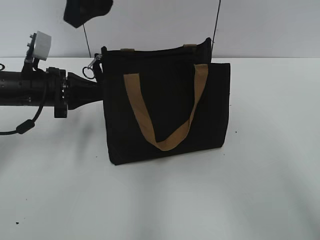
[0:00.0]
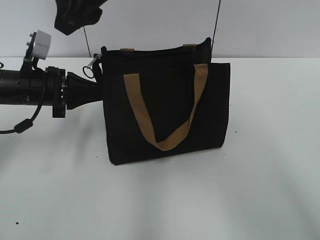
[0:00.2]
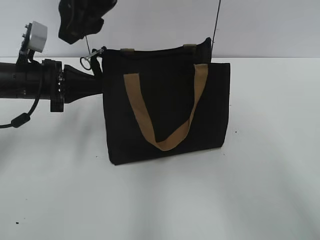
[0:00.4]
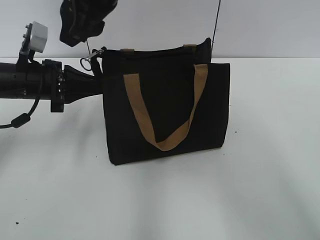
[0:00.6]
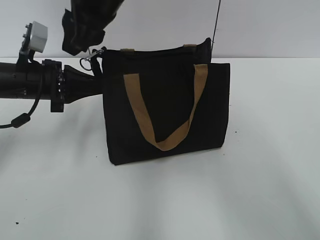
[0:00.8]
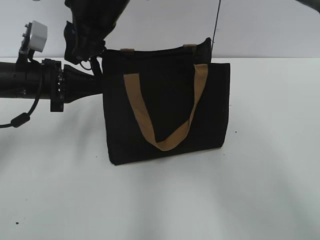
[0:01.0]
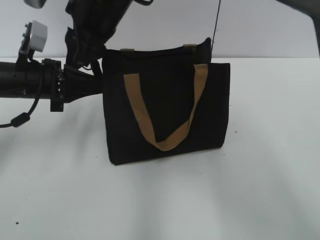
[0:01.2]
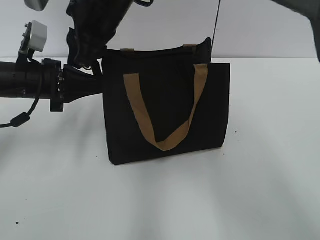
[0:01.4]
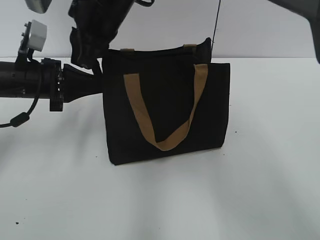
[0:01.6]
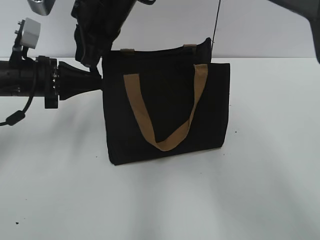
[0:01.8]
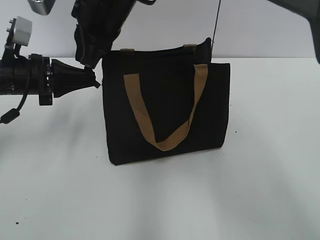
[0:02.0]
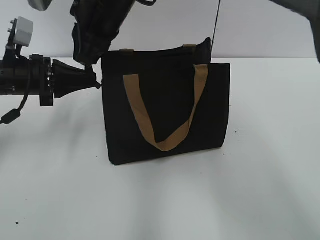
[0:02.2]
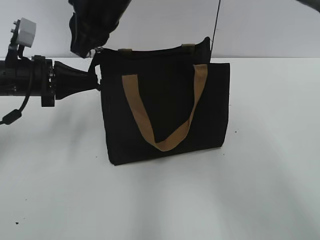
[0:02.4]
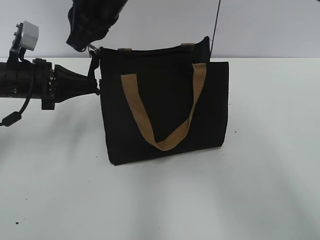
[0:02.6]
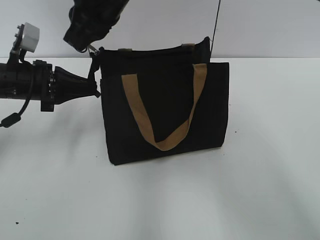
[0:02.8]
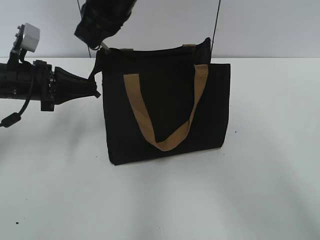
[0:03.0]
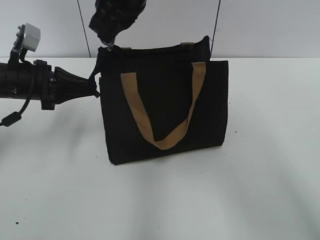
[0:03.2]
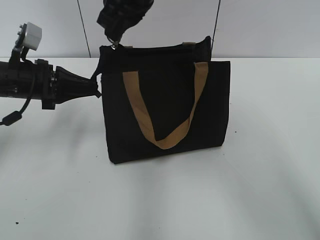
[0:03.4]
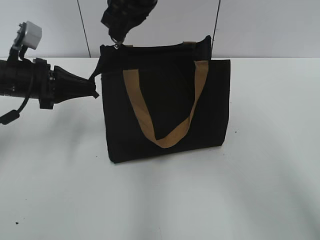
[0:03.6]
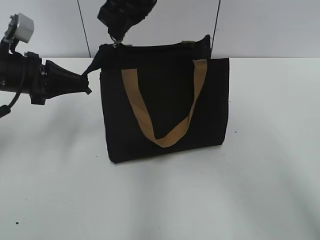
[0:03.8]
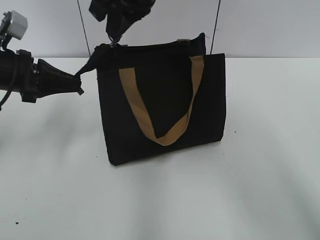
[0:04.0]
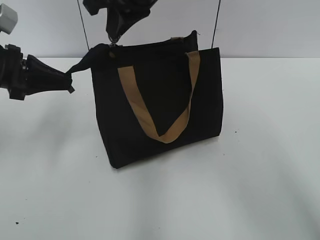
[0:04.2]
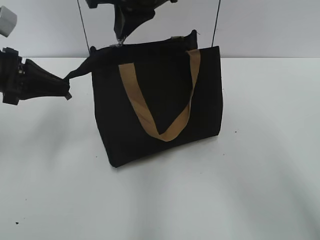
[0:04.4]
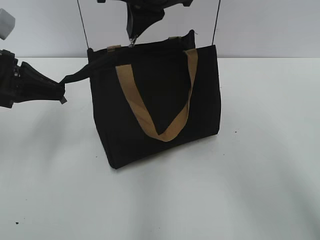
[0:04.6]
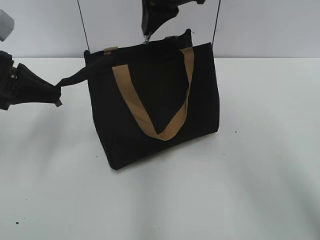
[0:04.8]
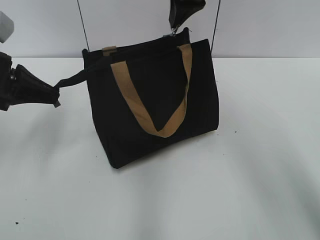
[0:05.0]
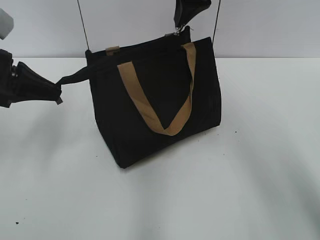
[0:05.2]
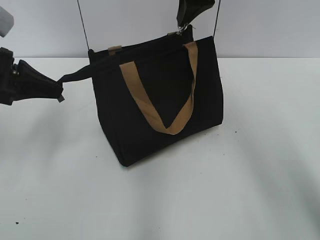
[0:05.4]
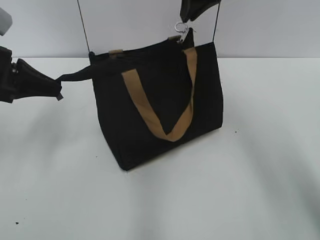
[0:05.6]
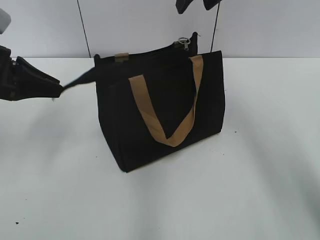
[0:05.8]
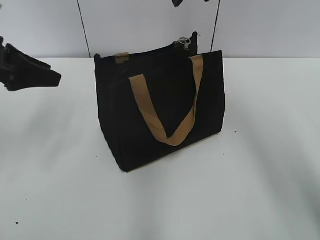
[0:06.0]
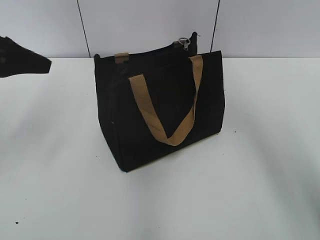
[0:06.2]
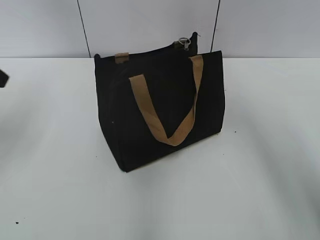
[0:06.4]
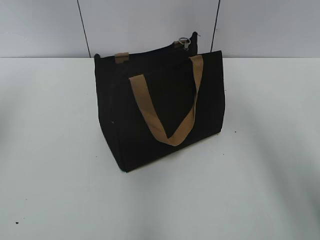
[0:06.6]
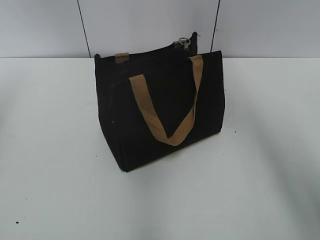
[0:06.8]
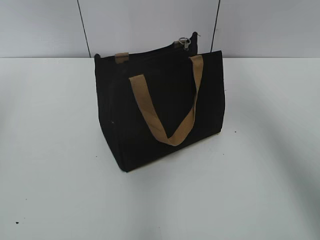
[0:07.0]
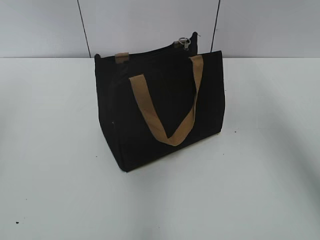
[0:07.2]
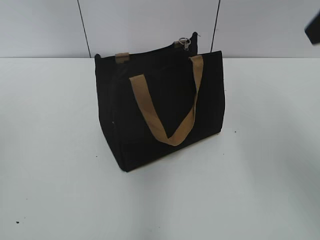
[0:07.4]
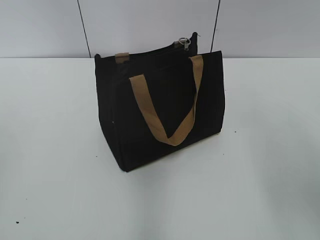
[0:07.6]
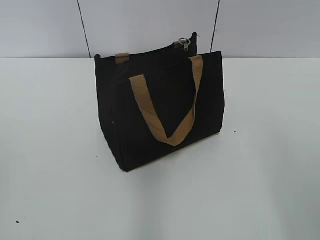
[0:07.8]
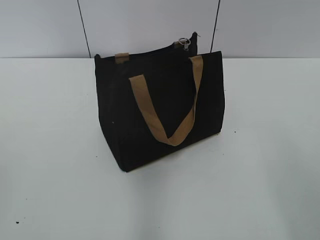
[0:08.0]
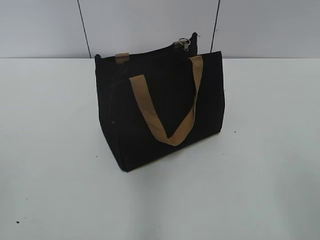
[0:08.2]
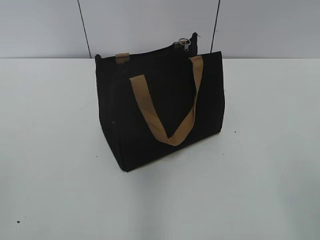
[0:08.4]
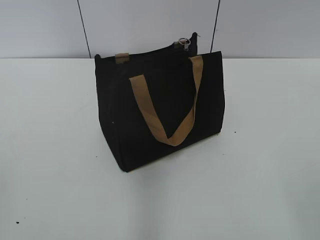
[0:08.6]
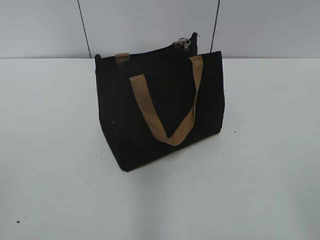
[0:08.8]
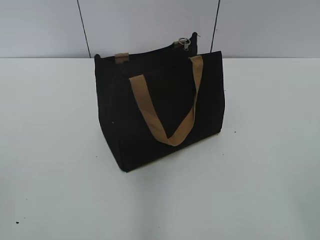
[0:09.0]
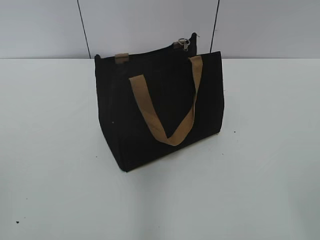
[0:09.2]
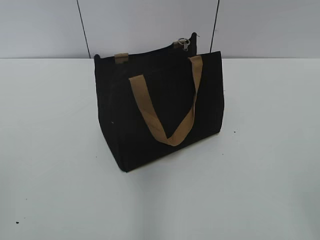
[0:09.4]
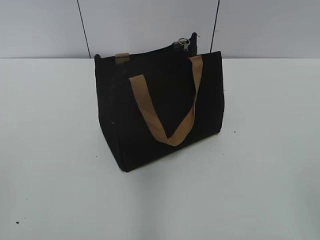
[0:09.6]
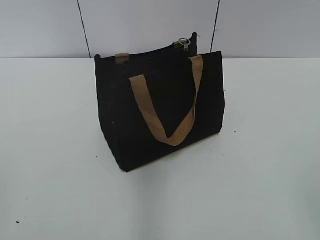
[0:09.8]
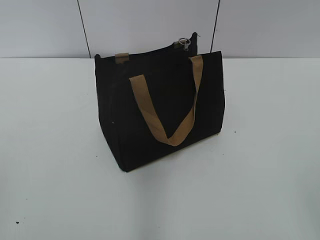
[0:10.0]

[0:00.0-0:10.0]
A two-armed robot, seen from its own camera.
Step, 0:00.0 to 0:05.4: Zip up the bag with your right hand.
0:00.0 to 0:01.4: The right gripper is displaced downward by about 10 cm.
0:01.4 to 0:02.8: The right gripper closes.
0:02.8 to 0:04.2: The left gripper shifts by about 5 cm; the right gripper ends up roughly 5 cm from where it was.
0:04.2 to 0:05.8: The right gripper moves to the right and forward, approximately 10 cm, and opens its fingers.
0:05.8 to 0:07.2: The right gripper heads backward, to the right and upward, covering some 15 cm; the left gripper moves upward, backward and to the left, roughly 20 cm, and opens up.
0:07.2 to 0:08.6: The right gripper shifts approximately 35 cm backward and downward.

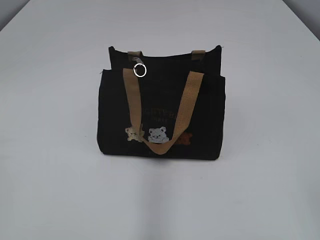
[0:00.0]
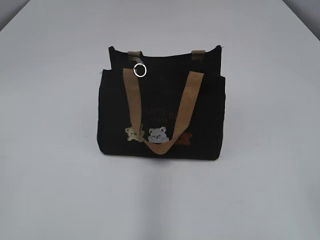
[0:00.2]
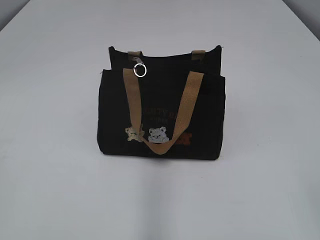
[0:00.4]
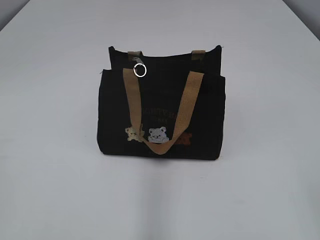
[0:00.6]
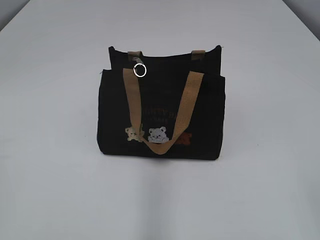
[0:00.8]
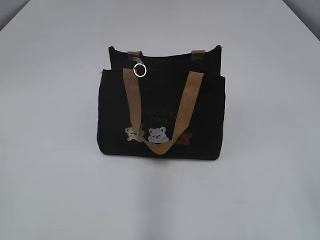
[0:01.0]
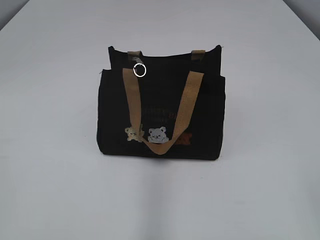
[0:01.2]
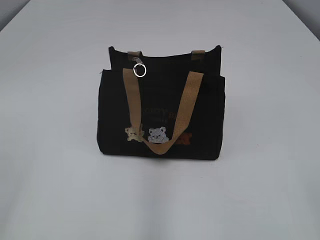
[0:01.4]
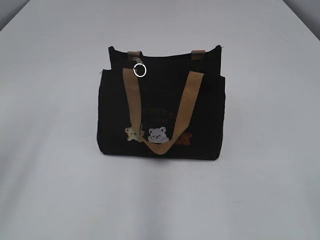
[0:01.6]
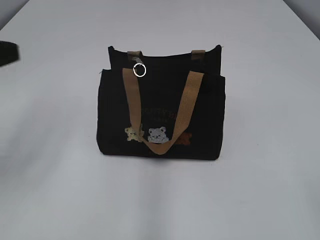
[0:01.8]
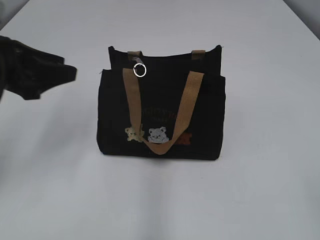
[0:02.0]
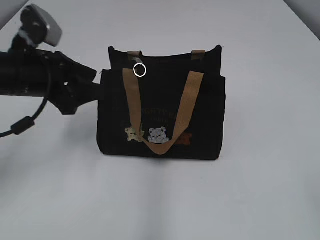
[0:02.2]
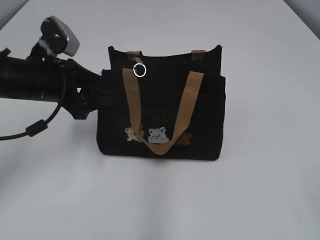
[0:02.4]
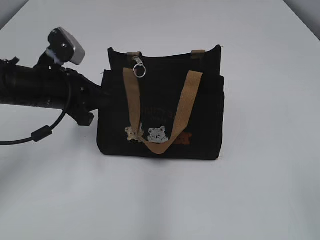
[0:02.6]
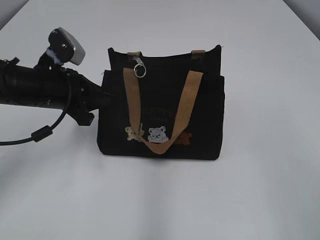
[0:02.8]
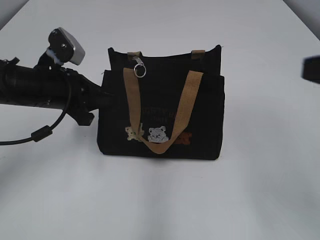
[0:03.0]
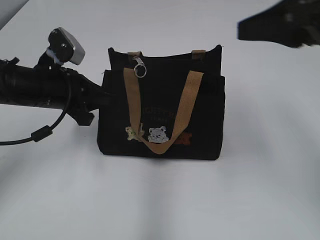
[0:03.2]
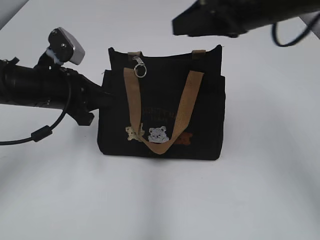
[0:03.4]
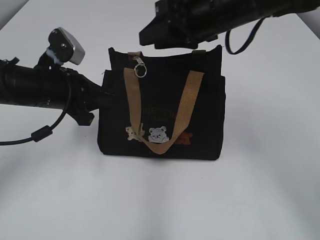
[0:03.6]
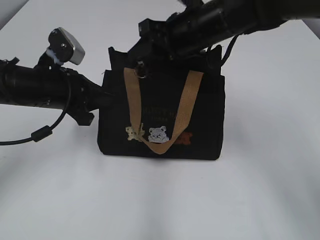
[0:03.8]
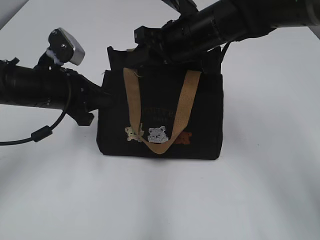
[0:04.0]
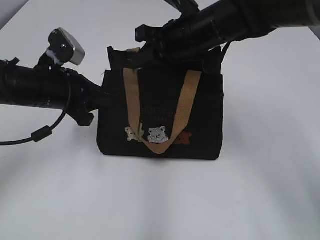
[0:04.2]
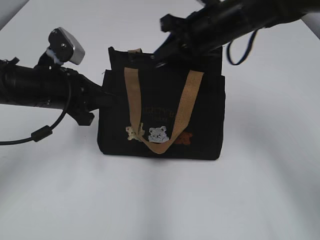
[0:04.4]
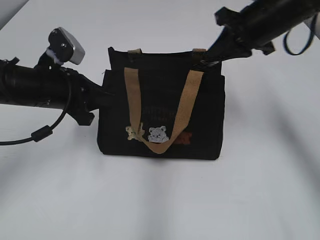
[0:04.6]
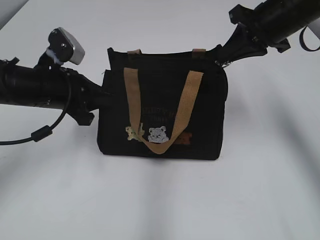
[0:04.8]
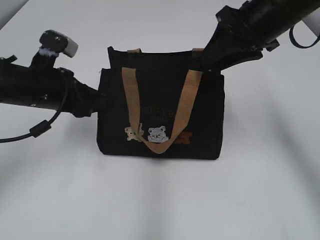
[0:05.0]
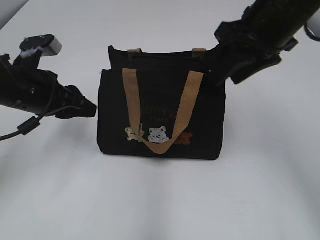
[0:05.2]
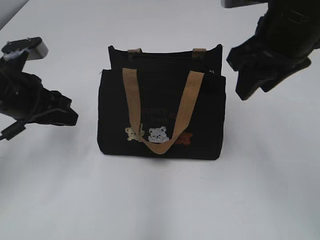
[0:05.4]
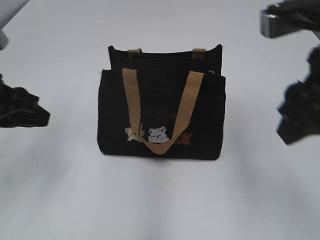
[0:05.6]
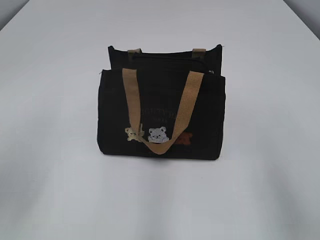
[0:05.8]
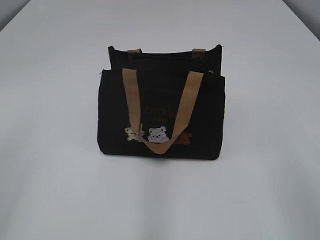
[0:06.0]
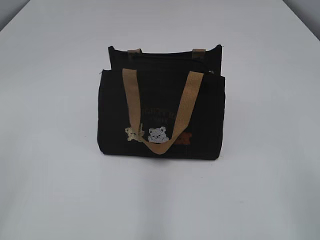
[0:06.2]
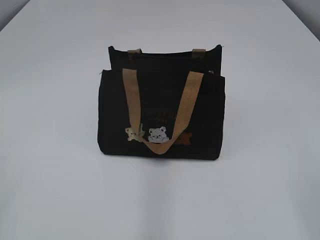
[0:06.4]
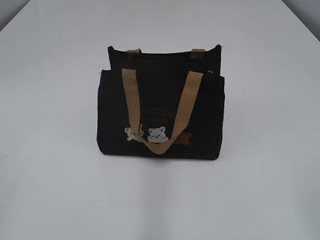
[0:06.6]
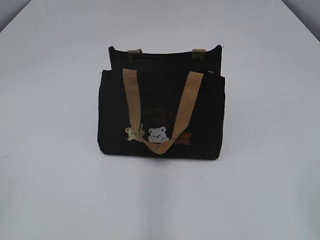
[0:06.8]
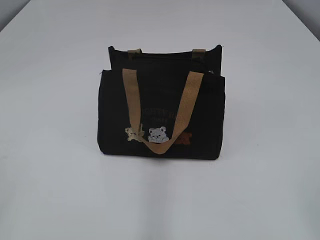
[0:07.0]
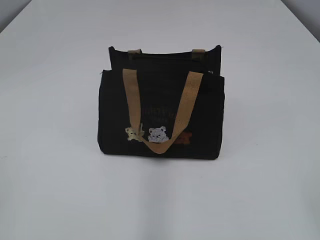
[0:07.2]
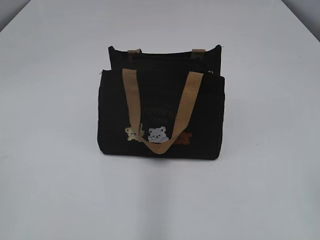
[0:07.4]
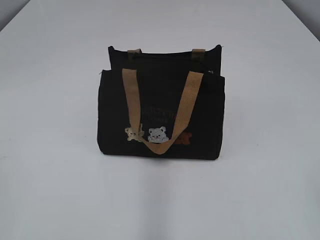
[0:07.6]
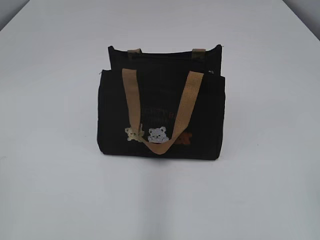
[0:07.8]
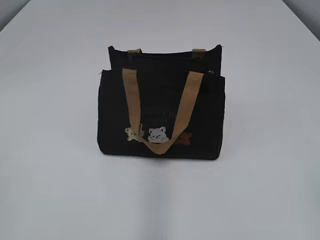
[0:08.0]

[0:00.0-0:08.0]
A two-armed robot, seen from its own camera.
Step, 0:00.0 to 0:04.8: Pull open the zipper with your right hand.
Step, 0:05.0 to 0:05.2: Hold the bag with your left hand.
0:01.6 to 0:03.2: The left gripper heads forward, downward and to the right, covering some 30 cm, and closes its fingers. Meanwhile the right gripper travels forward by about 25 cm.
0:03.2 to 0:04.8: The right gripper goes about 15 cm forward and downward, and closes.
0:04.8 to 0:06.4: Both grippers travel together backward, about 35 cm. The left gripper opens. Meanwhile the right gripper opens its fingers.

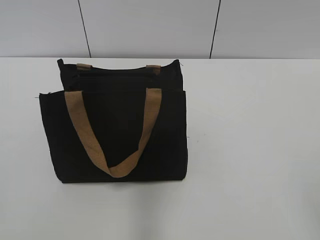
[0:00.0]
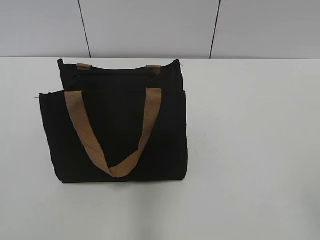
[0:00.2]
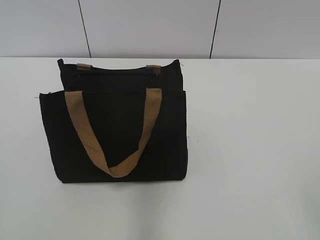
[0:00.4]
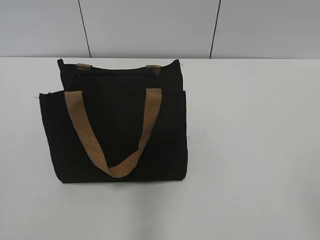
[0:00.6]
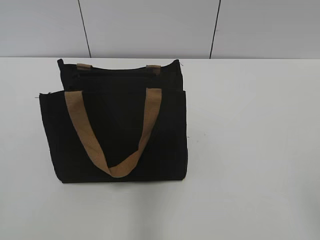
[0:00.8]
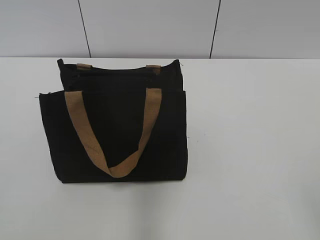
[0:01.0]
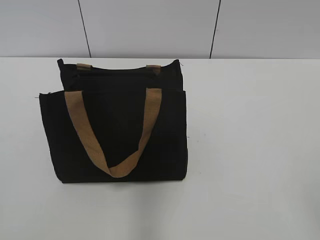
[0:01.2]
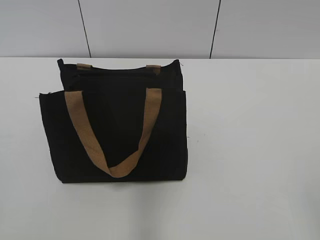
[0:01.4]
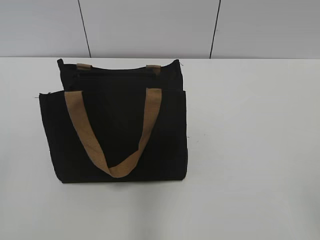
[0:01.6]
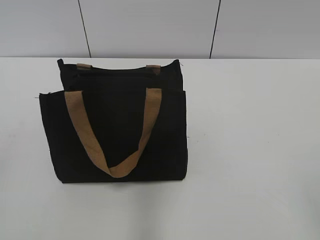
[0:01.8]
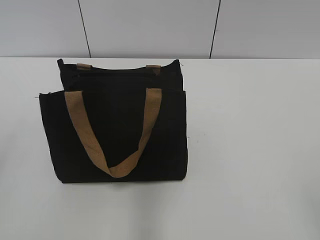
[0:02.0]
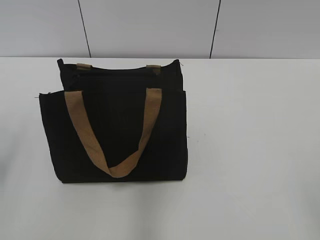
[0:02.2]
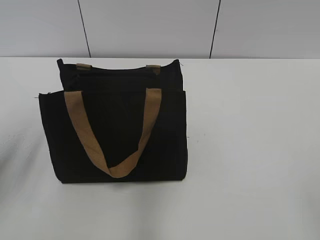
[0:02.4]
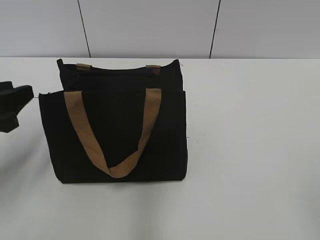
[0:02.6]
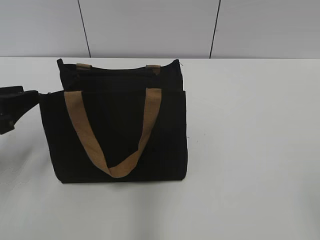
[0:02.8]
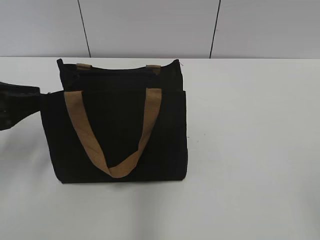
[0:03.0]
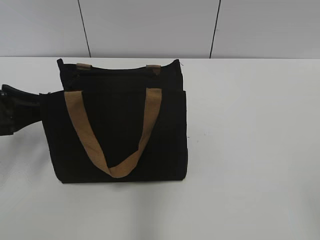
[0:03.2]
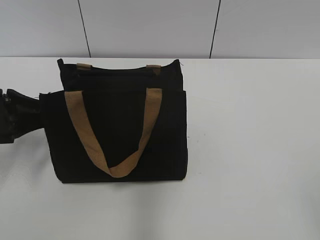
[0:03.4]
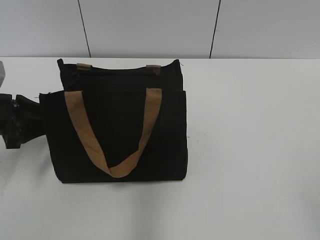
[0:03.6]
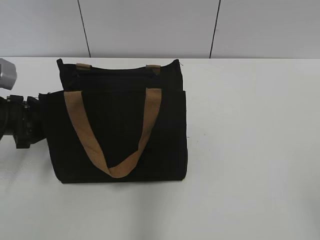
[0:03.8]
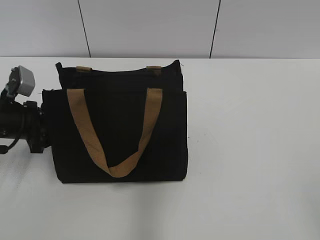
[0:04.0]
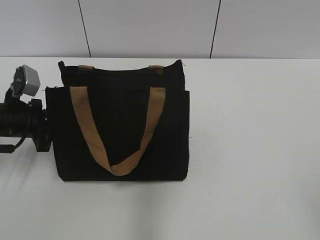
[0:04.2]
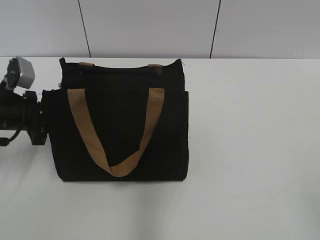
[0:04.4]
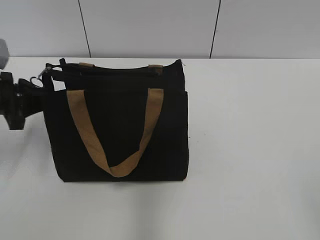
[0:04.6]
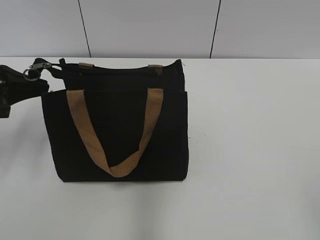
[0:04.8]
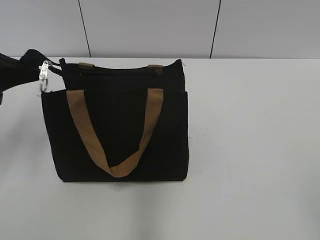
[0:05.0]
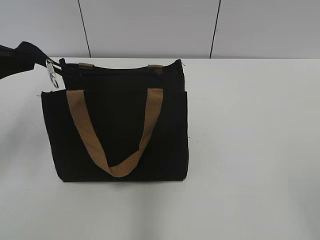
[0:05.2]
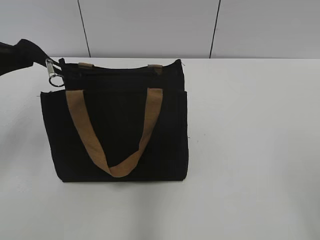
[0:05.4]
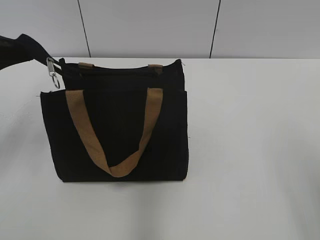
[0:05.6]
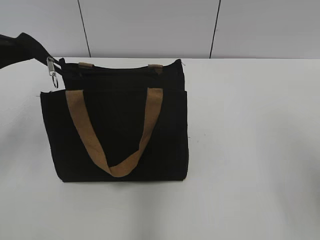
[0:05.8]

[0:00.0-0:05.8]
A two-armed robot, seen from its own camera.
0:01.4 to 0:02.8: The left gripper moves forward and downward, roughly 25 cm.
0:02.8 to 0:04.4: The left gripper is displaced forward and downward by some 10 cm, and closes up.
0:04.4 to 0:05.8: The right gripper shifts some 10 cm forward. Meanwhile the left gripper goes about 15 cm upward.
